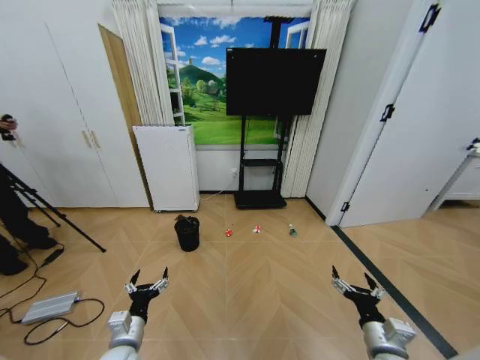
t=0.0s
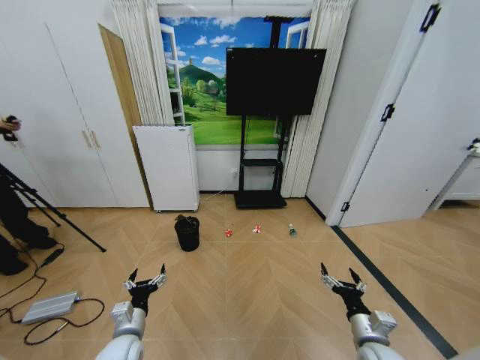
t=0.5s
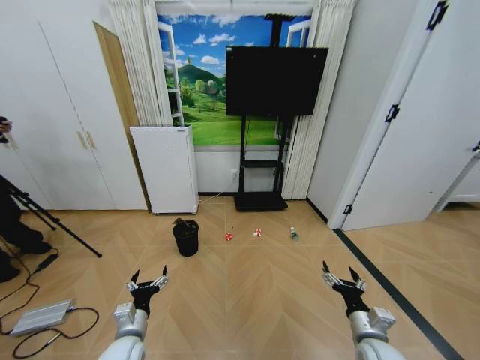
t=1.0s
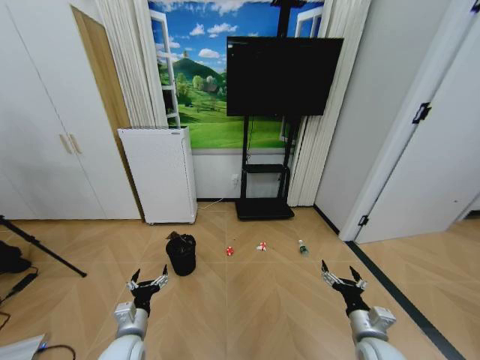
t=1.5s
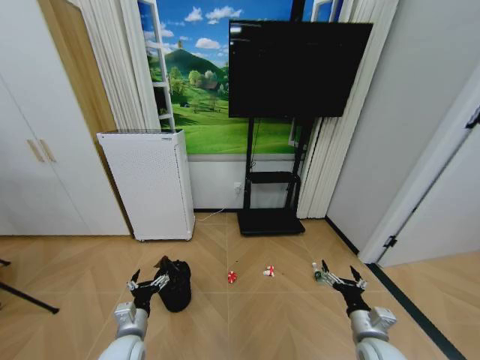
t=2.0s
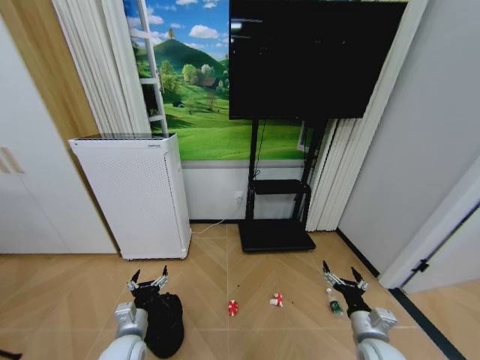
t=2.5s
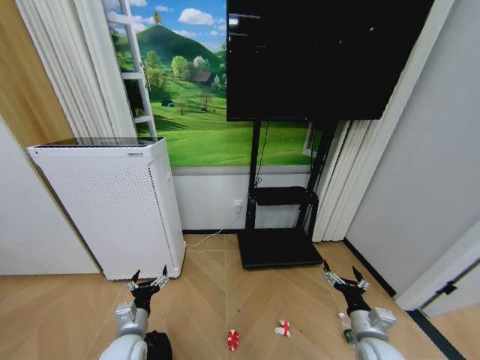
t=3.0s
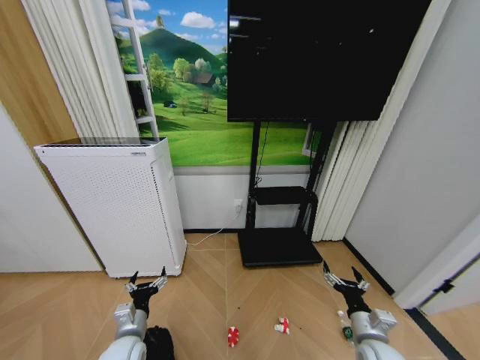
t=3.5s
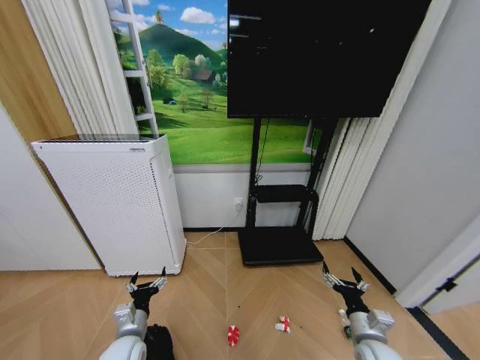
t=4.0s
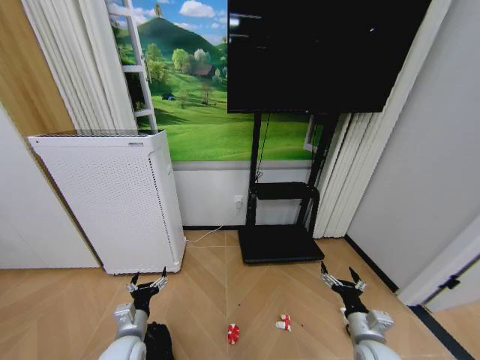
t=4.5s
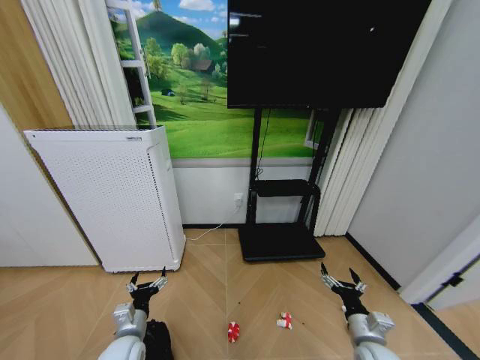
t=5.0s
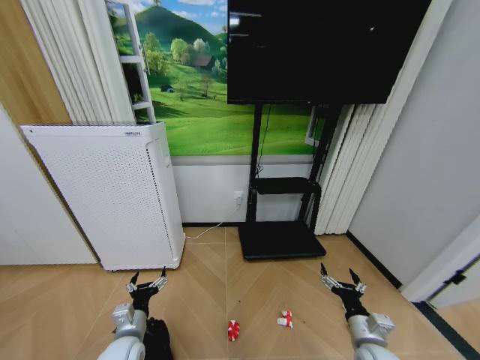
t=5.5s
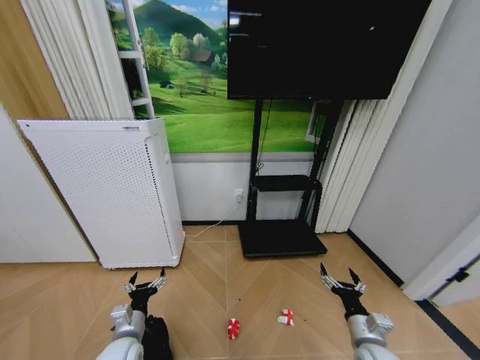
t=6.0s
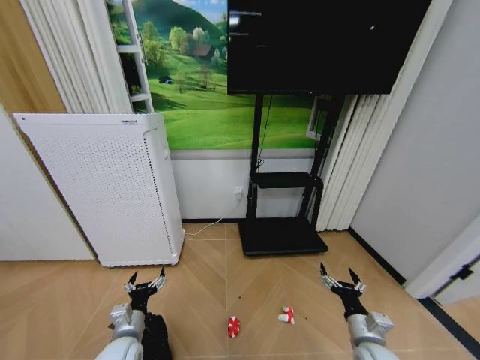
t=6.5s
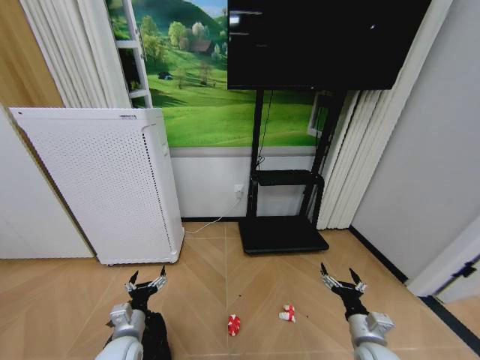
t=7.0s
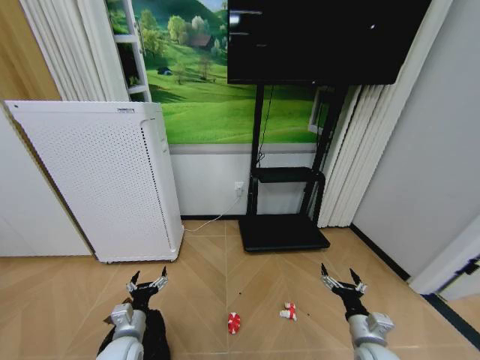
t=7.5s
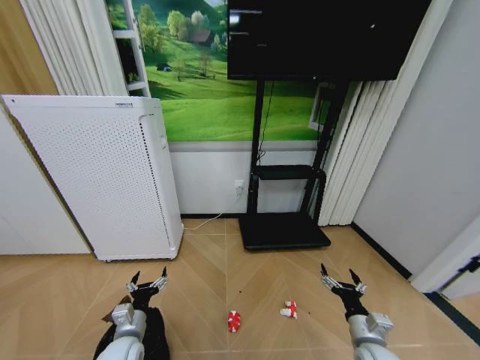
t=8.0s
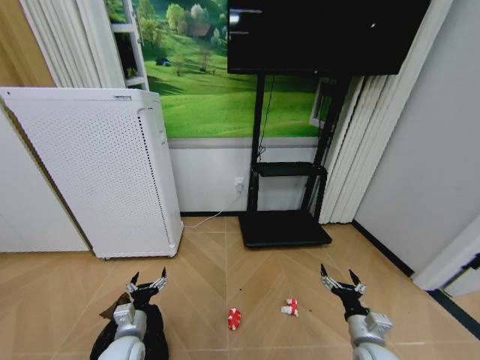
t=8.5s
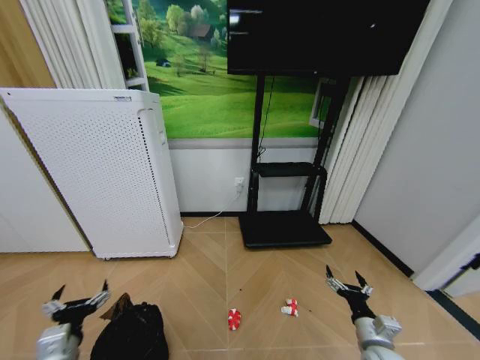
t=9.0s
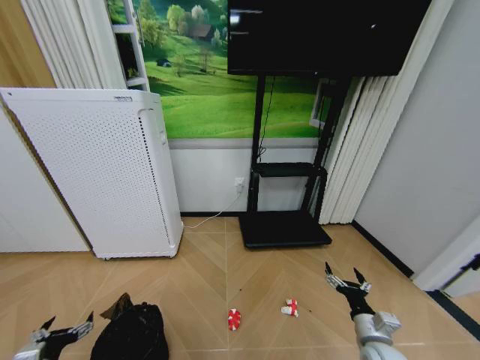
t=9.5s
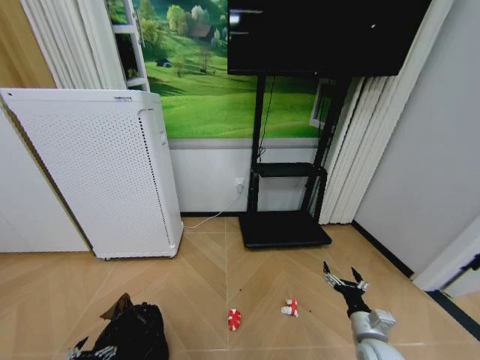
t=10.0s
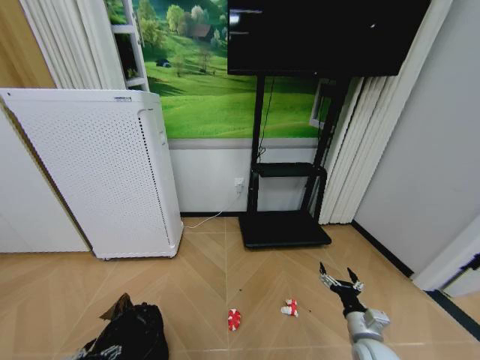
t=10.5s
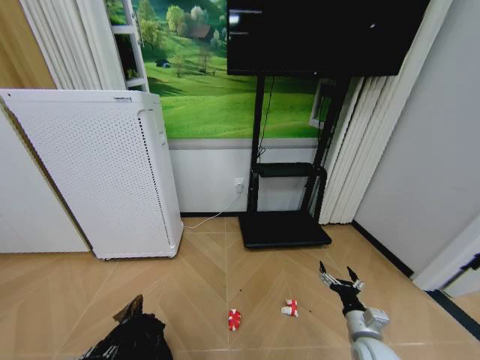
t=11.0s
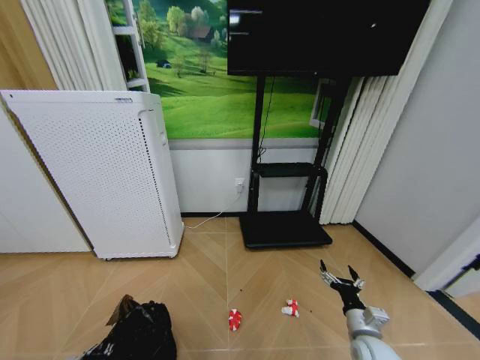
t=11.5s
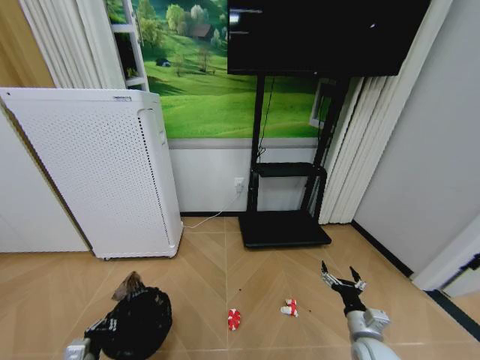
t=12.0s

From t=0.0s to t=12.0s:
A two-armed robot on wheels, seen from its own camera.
Task of the whole recording: Pick up the trash bin and place the garbage on the floor into it.
From t=4.0s to t=8.0s: Both grippers stay put.
From t=8.0s to t=10.0s: The left gripper travels to the left and backward by some 20 cm.
From t=10.0s to t=12.0s: The left gripper shifts by roughly 5 cm, and closes up.

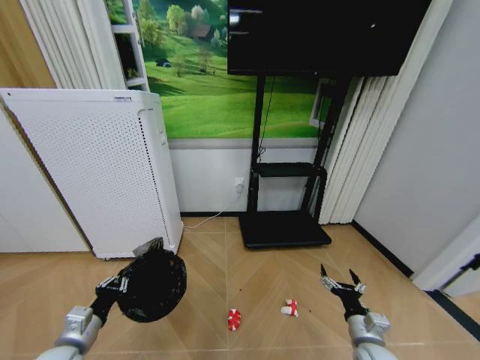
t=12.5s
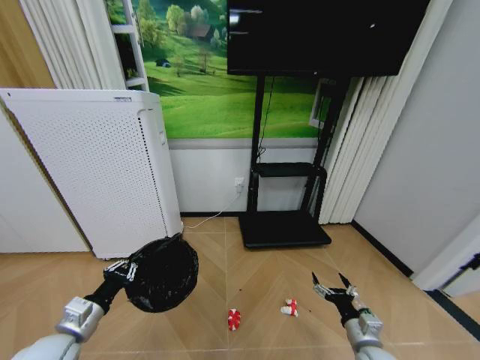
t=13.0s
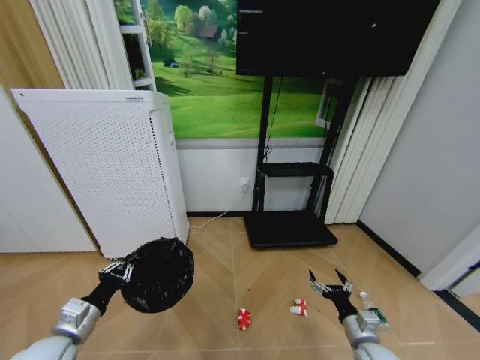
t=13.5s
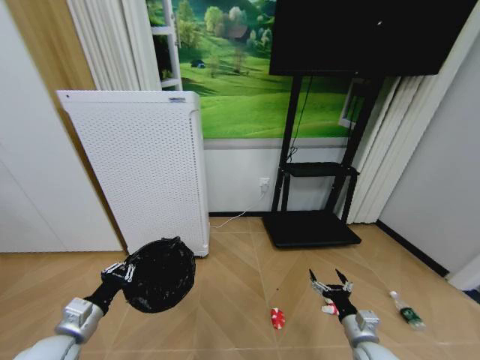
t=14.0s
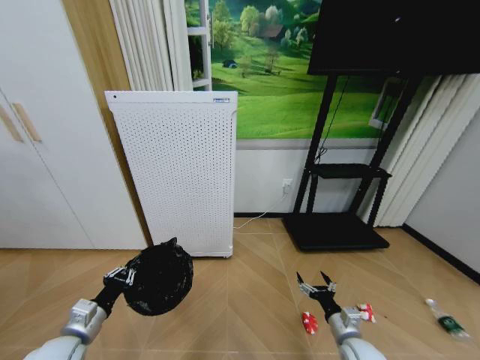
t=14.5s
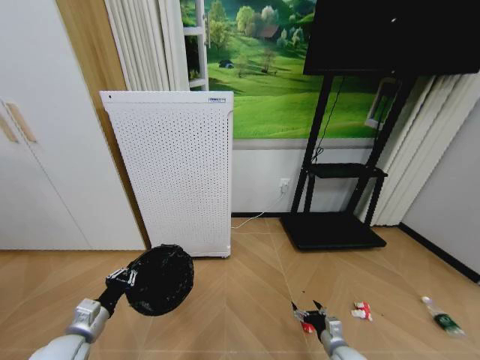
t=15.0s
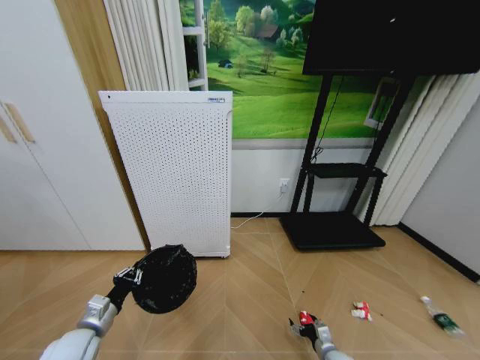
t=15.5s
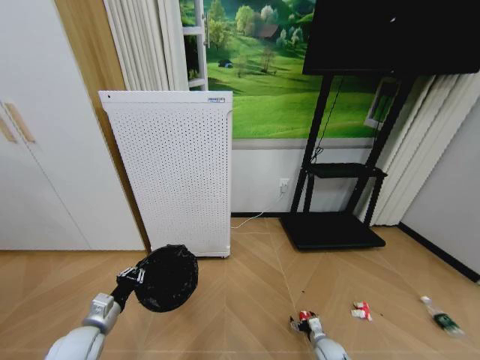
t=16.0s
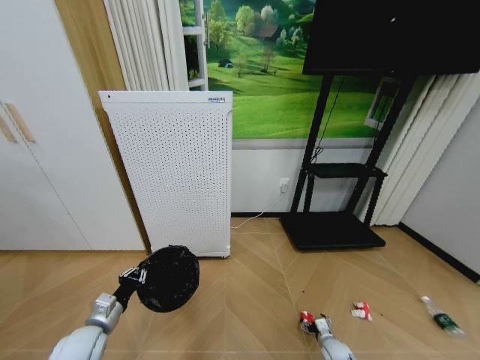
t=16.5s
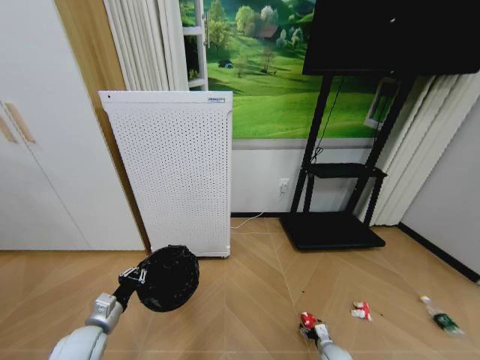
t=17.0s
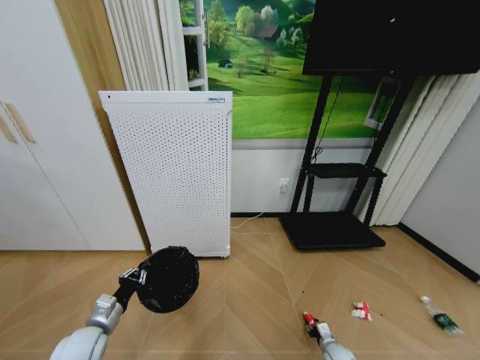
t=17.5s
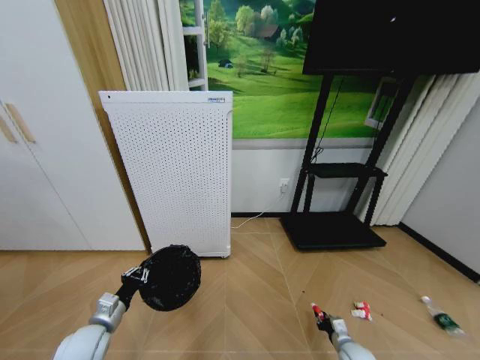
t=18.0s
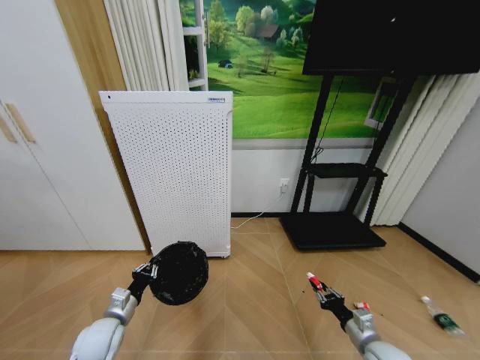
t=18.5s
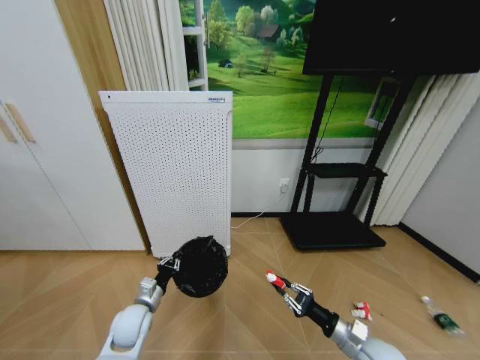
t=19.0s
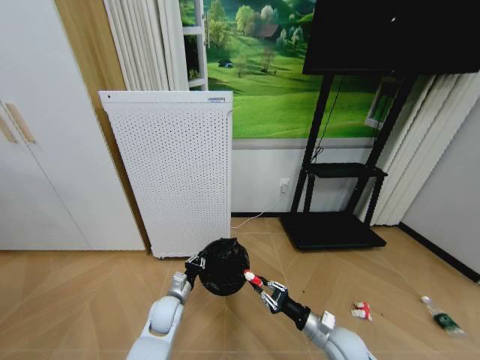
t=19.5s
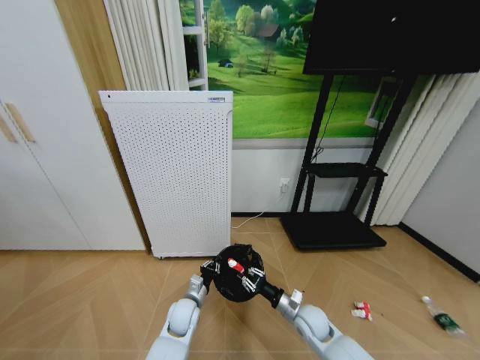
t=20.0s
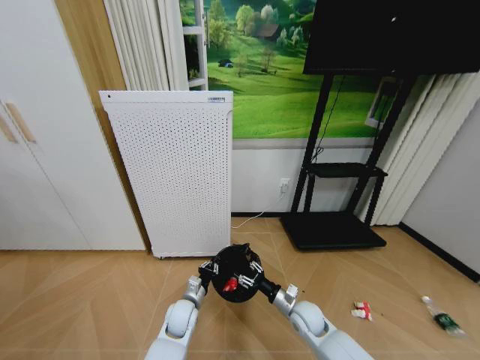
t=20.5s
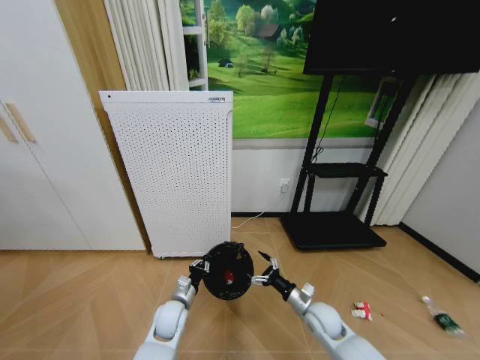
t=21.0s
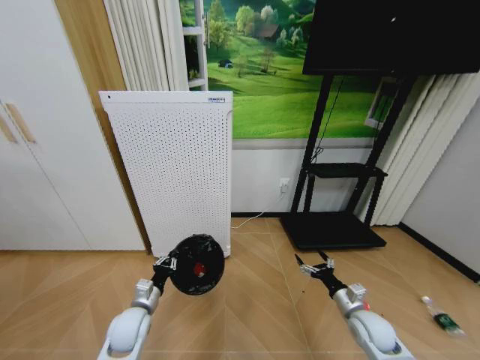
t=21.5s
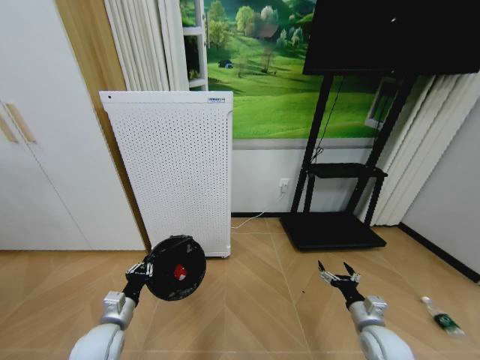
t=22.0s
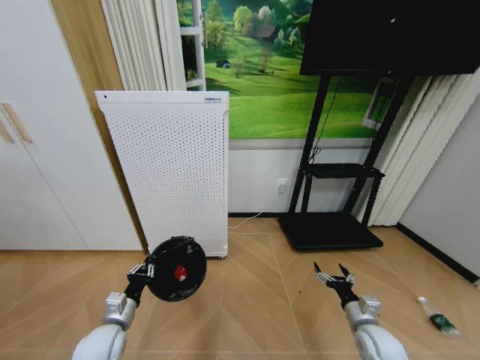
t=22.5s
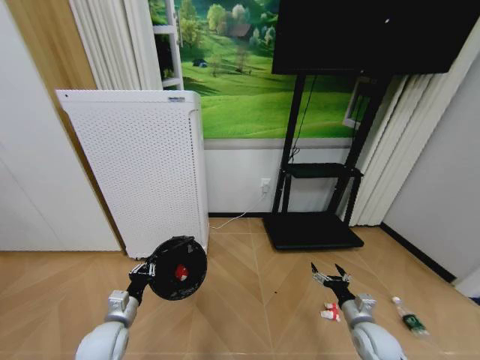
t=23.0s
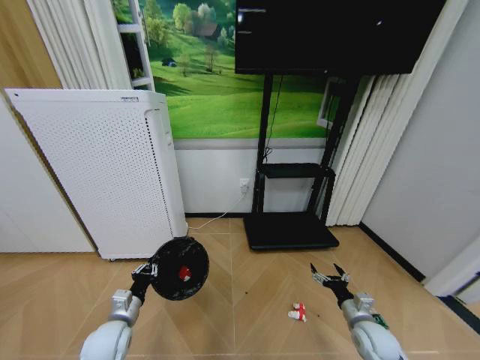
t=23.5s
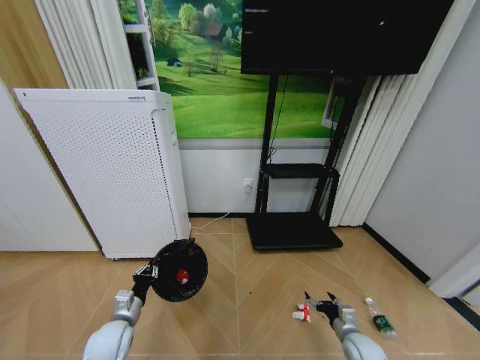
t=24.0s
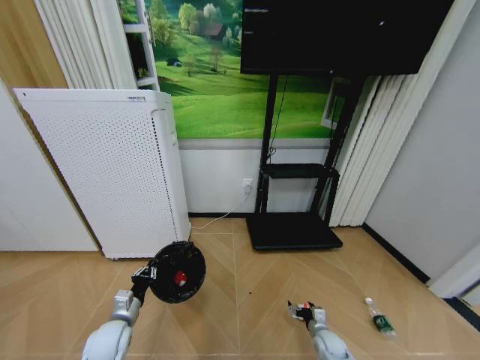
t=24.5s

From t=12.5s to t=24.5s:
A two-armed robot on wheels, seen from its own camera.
Task of the whole recording: Pick up the trash bin and place the garbage on the floor into it.
From t=14.5s to t=16.5s: The left gripper ends up approximately 5 cm from where it was, while the right gripper moves downward, some 20 cm.
From t=16.5s to t=18.5s: The right gripper moves upward, about 20 cm, and closes.
From t=18.5s to t=20.5s: The left gripper is displaced to the right by some 20 cm; the right gripper travels to the left and forward by about 20 cm, and opens its fingers.
From t=20.5s to t=22.5s: The right gripper travels to the right and backward by some 15 cm, and opens up. The left gripper heads to the left, backward and upward, covering approximately 20 cm.
From t=22.5s to t=24.5s: The right gripper shifts some 15 cm downward.

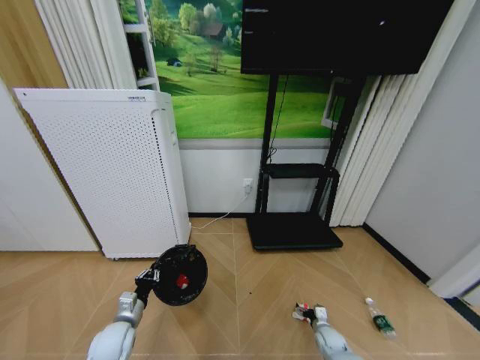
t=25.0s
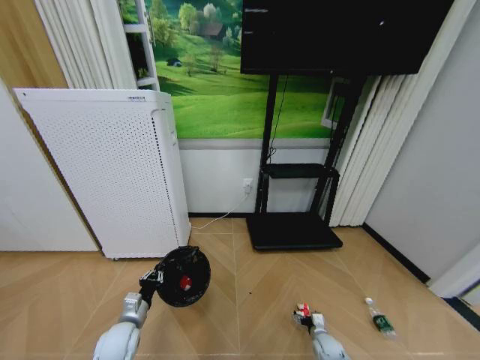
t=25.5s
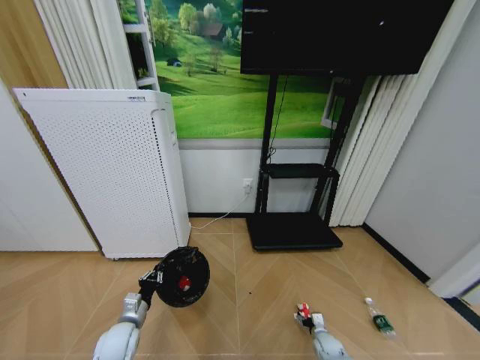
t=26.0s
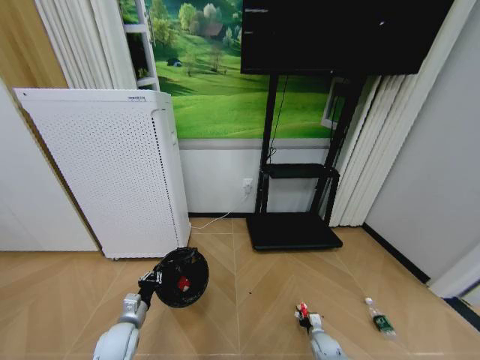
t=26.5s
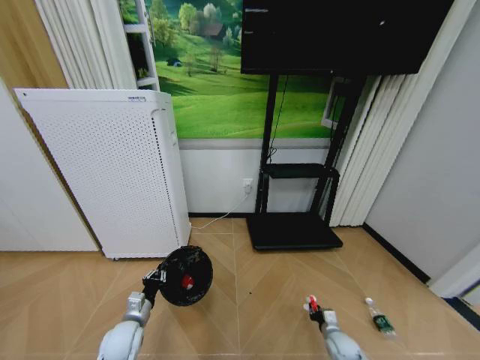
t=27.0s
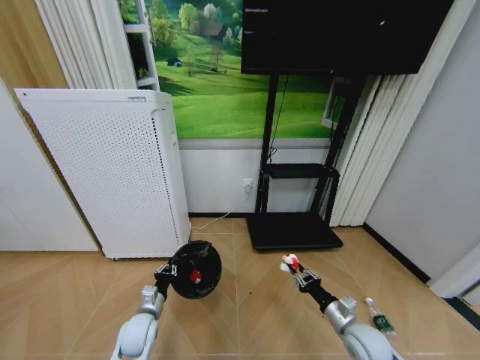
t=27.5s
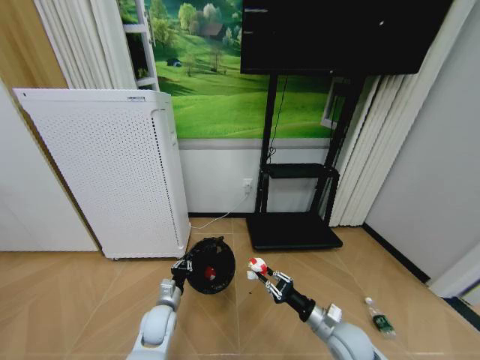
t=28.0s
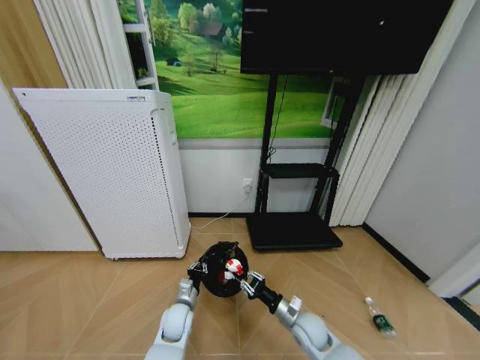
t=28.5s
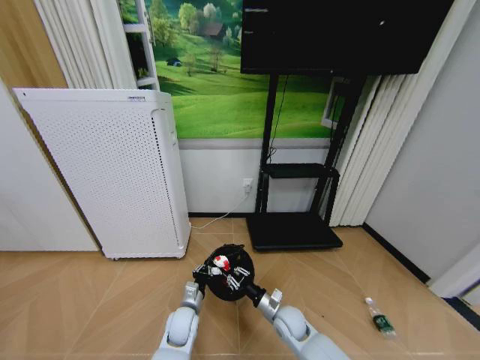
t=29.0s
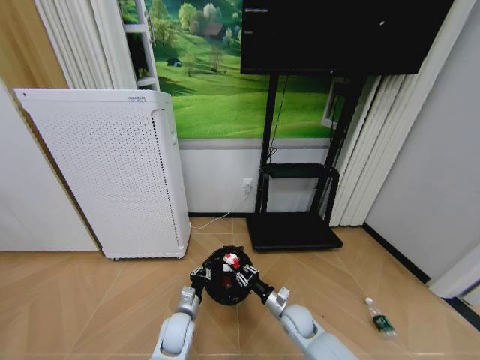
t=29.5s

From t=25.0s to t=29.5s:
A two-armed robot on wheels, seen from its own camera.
Task of the whole recording: Pick up the trash bin and place the garbage on the floor into it.
From t=25.0s to t=27.0s: The right gripper closes.
From t=27.0s to t=29.5s: The left gripper heads to the right, covering about 15 cm. The right gripper goes approximately 20 cm to the left and upward.
